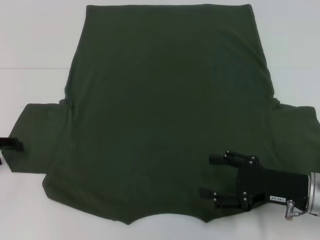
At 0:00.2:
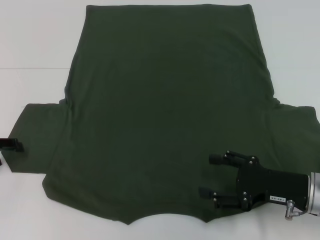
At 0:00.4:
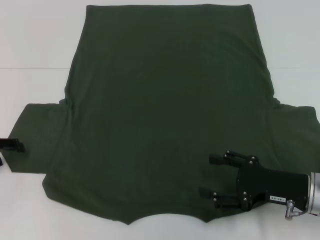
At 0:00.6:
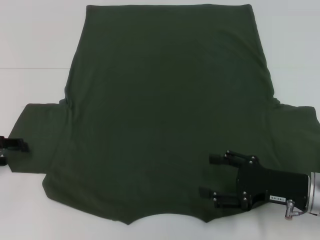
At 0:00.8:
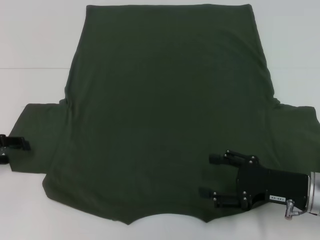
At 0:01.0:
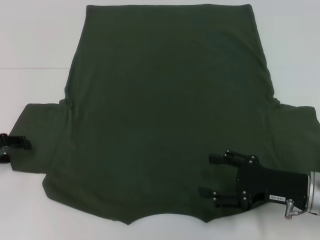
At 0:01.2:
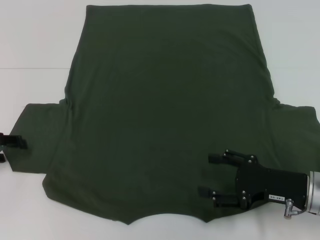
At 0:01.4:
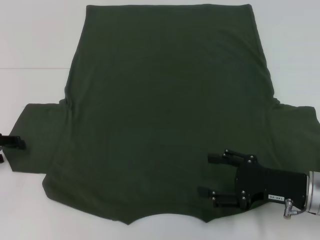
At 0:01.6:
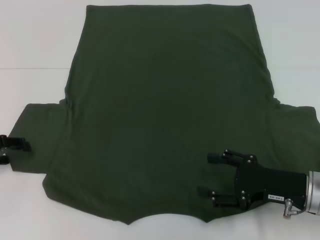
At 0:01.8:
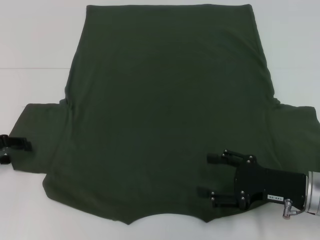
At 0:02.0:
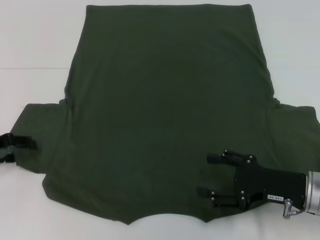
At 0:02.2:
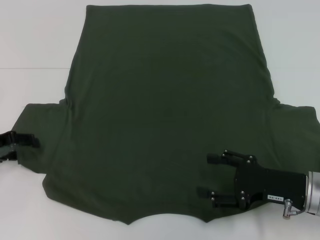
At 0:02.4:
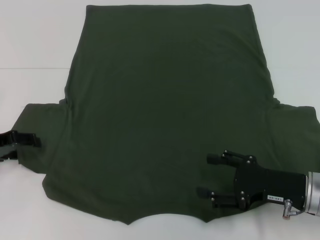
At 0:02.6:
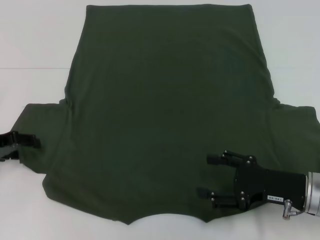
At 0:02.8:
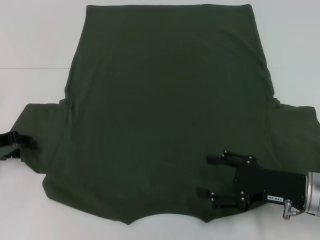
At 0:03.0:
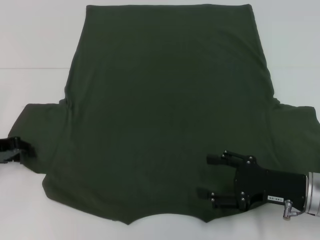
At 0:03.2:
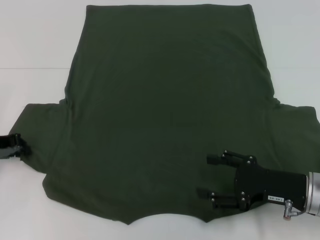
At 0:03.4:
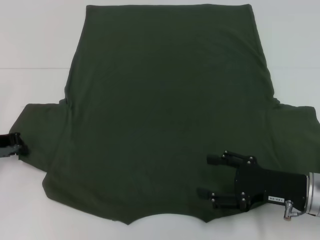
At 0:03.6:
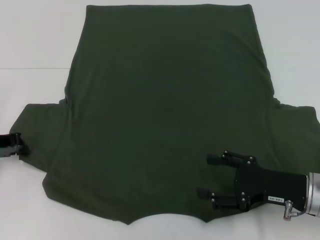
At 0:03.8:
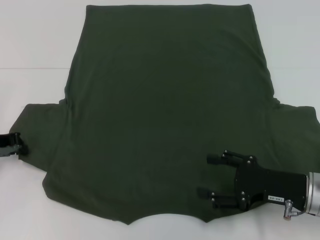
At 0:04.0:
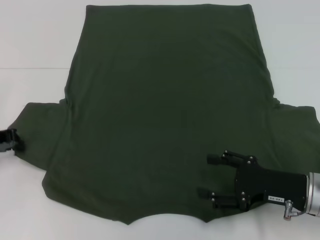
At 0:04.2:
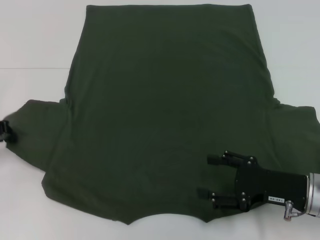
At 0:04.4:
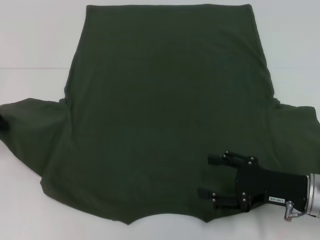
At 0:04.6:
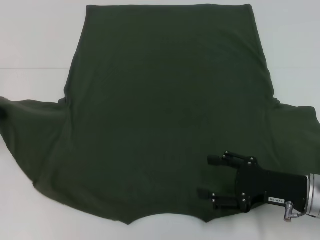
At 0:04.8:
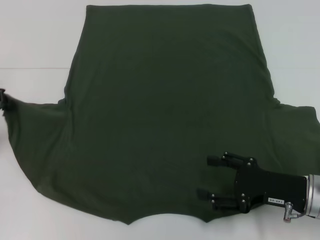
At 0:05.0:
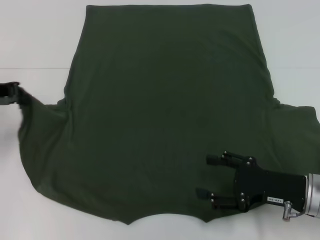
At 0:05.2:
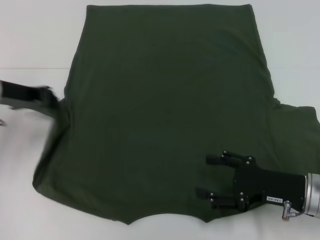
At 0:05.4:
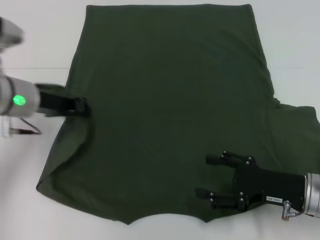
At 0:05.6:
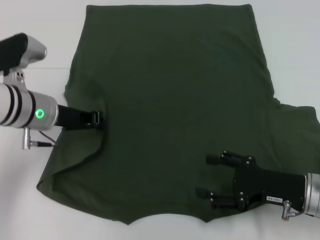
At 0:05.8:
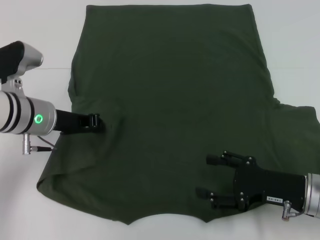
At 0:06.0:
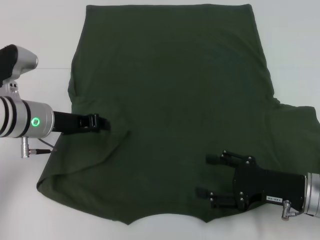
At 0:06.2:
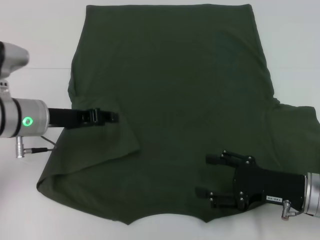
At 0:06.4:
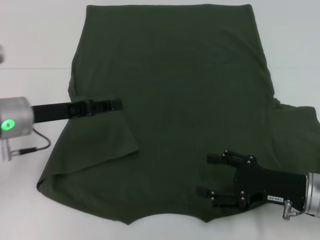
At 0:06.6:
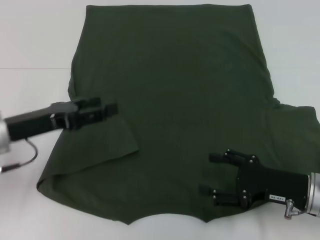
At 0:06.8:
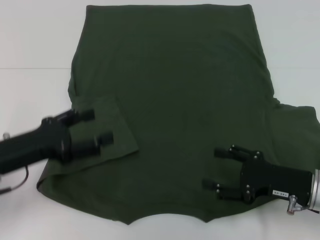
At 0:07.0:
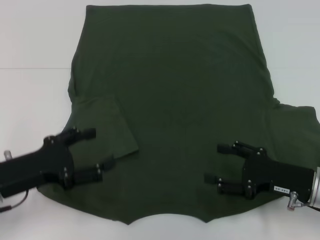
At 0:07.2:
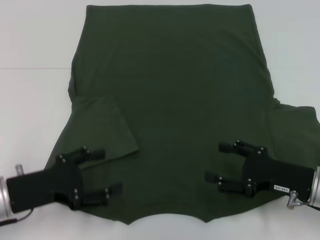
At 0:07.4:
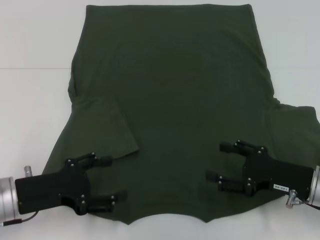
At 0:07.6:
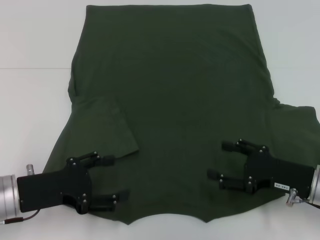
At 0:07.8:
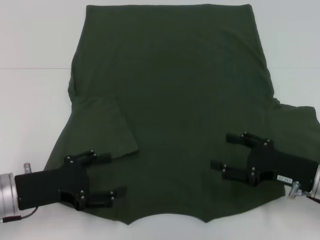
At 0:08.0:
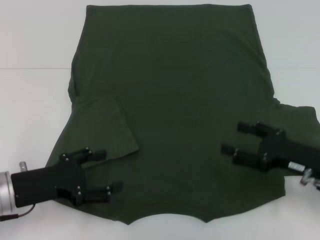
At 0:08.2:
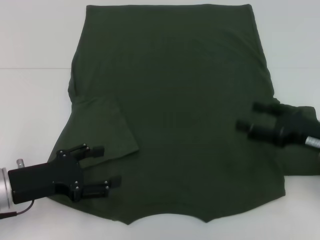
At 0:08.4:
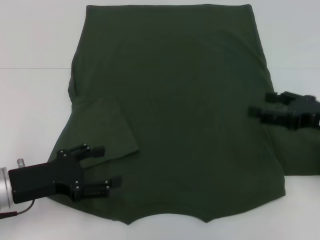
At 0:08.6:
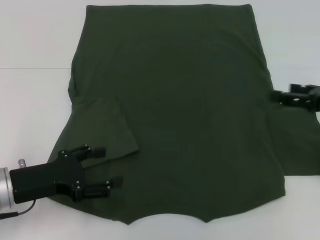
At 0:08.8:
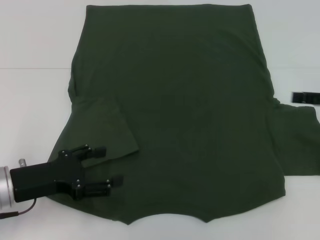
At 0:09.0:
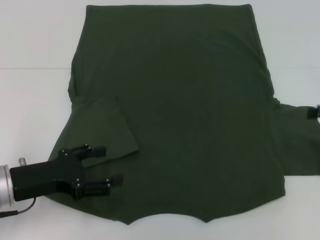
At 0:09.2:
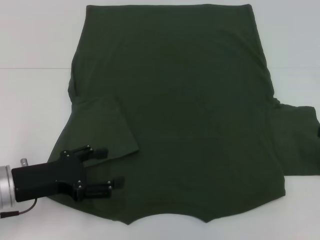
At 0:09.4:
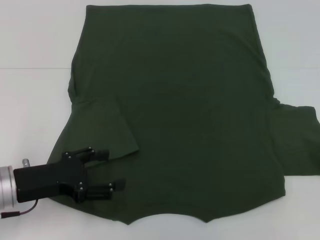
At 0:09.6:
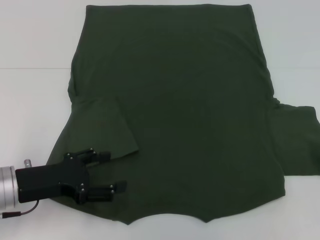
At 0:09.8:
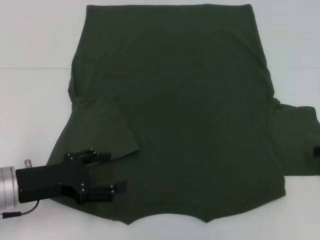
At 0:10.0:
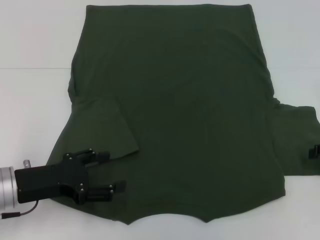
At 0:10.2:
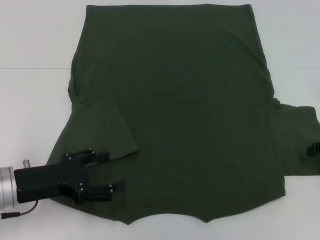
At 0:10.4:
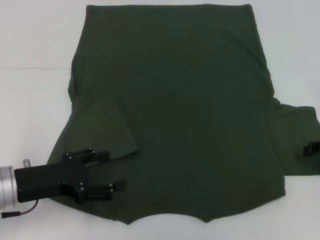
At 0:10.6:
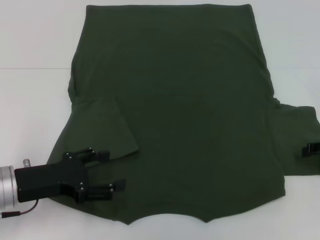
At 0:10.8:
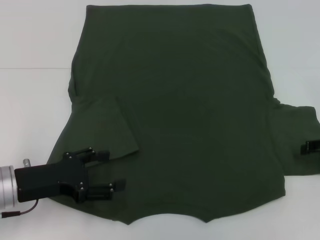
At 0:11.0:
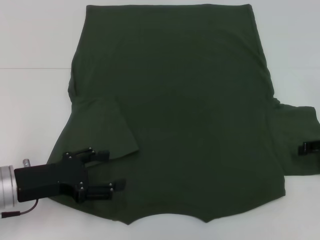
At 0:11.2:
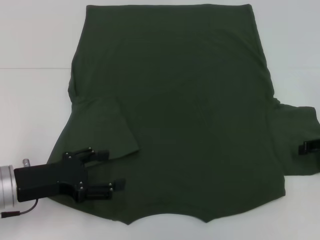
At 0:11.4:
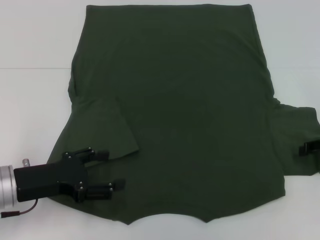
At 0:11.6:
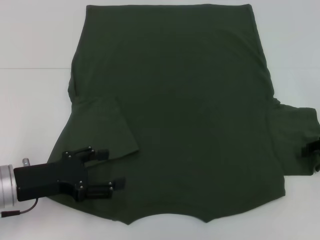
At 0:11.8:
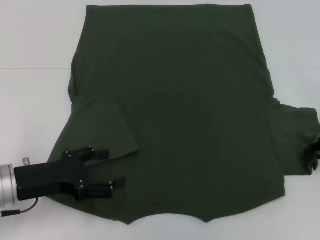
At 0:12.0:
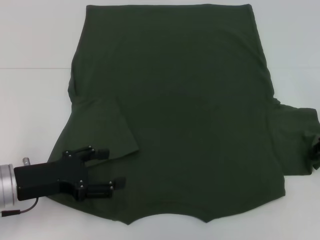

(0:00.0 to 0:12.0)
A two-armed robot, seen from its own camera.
Step, 0:00.0 - 0:06.4: Fold the bottom left sleeve with your left hand.
0:00.0 - 0:01.6: Both grippers stay put.
0:01.6 - 0:03.0: The grippers stay close to where they were, moving slightly.
0:03.0 - 0:04.4: The left gripper closes up.
0:04.4 - 0:06.0: The left gripper moves to the right, roughly 15 cm.
0:06.0 - 0:07.6: The left gripper is displaced backward by about 10 cm, and opens.
0:07.6 - 0:09.0: The right gripper shifts about 15 cm to the right and upward.

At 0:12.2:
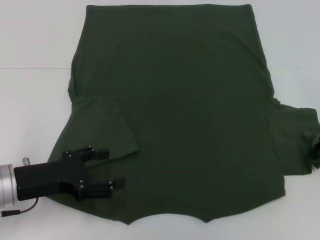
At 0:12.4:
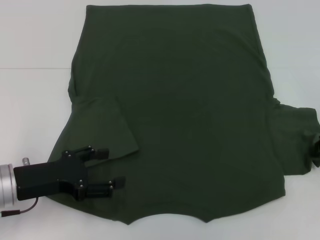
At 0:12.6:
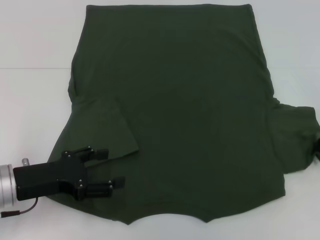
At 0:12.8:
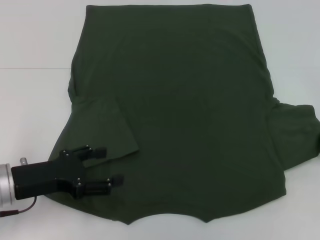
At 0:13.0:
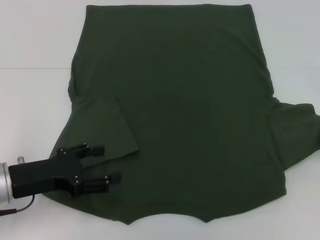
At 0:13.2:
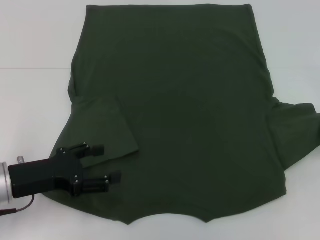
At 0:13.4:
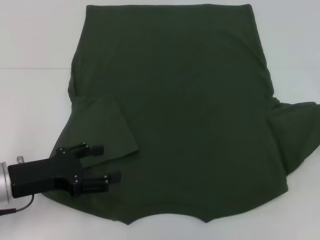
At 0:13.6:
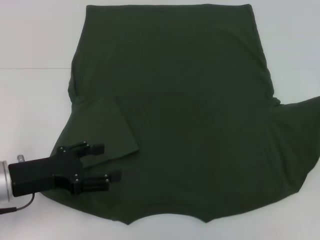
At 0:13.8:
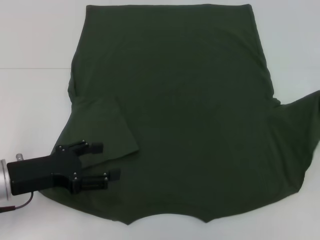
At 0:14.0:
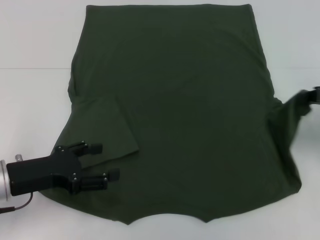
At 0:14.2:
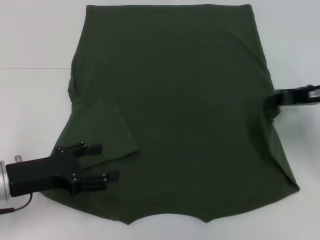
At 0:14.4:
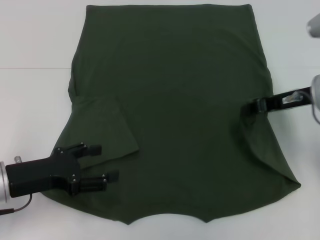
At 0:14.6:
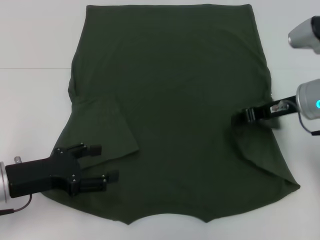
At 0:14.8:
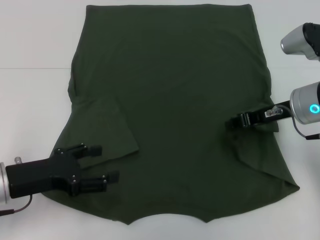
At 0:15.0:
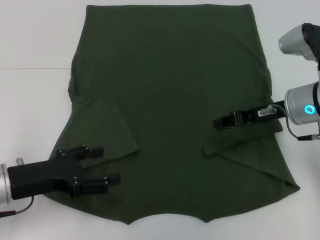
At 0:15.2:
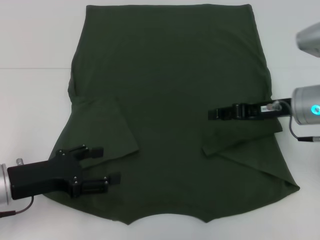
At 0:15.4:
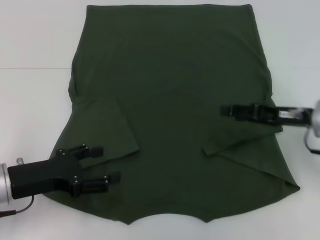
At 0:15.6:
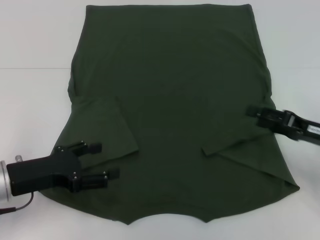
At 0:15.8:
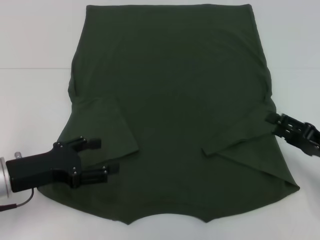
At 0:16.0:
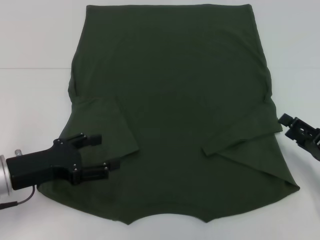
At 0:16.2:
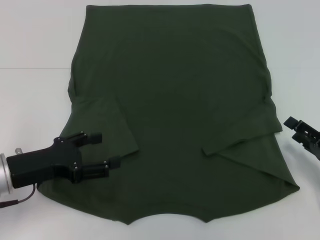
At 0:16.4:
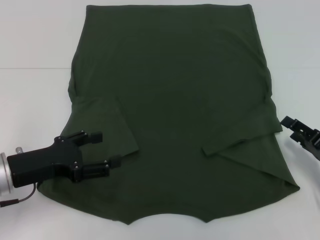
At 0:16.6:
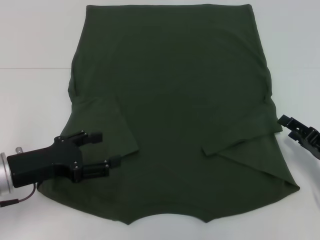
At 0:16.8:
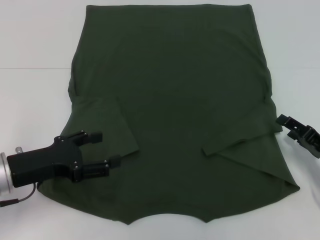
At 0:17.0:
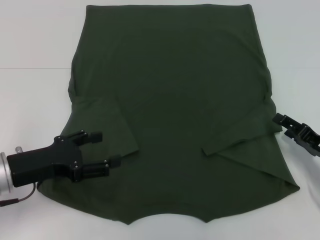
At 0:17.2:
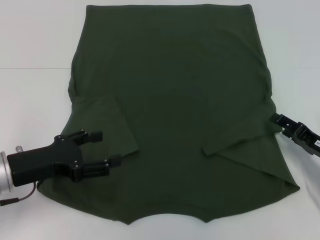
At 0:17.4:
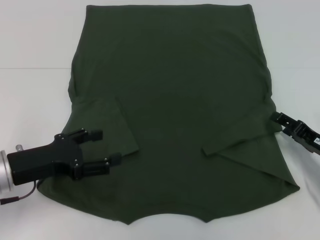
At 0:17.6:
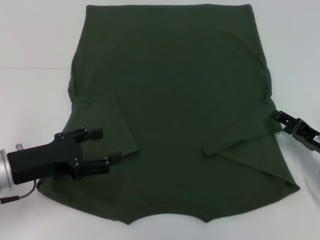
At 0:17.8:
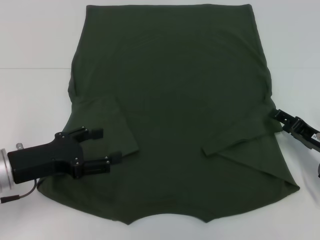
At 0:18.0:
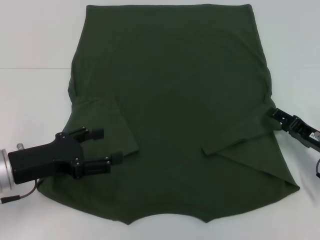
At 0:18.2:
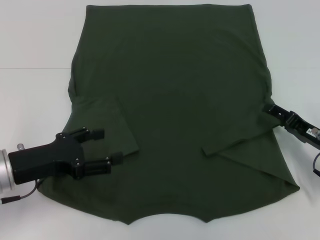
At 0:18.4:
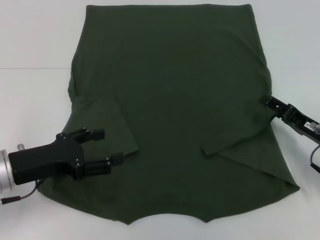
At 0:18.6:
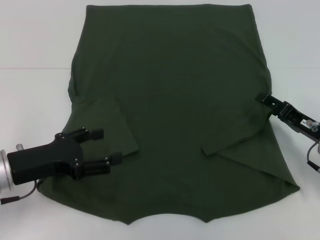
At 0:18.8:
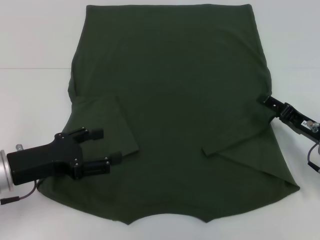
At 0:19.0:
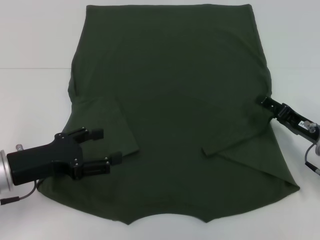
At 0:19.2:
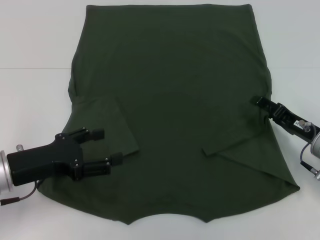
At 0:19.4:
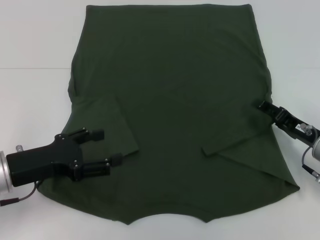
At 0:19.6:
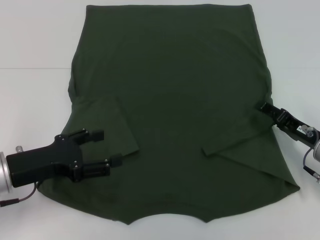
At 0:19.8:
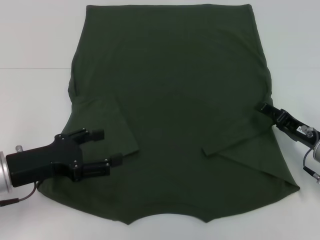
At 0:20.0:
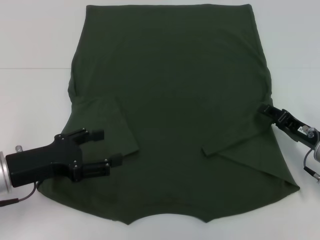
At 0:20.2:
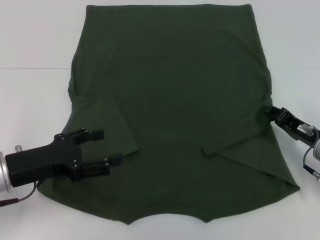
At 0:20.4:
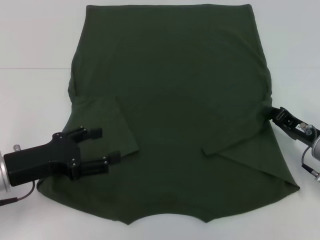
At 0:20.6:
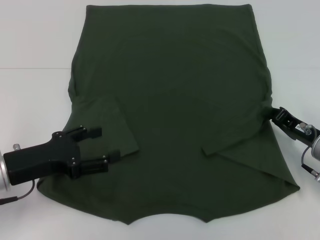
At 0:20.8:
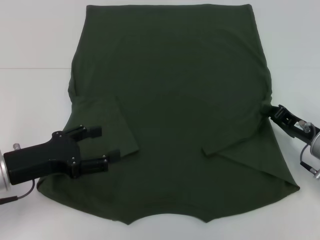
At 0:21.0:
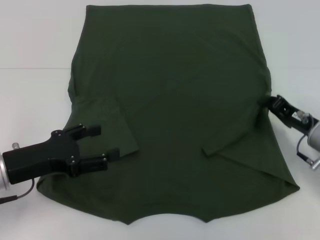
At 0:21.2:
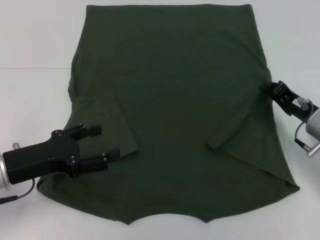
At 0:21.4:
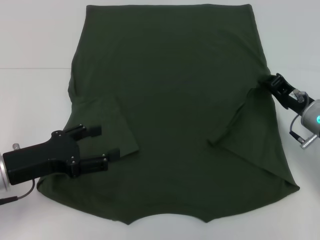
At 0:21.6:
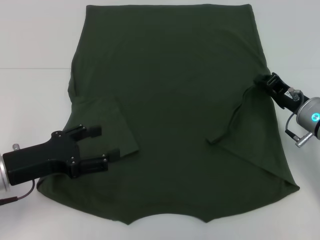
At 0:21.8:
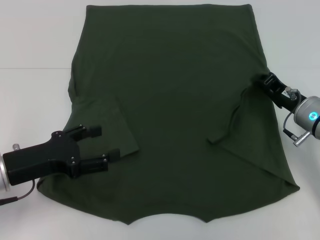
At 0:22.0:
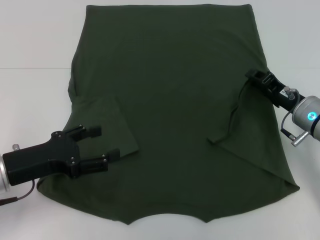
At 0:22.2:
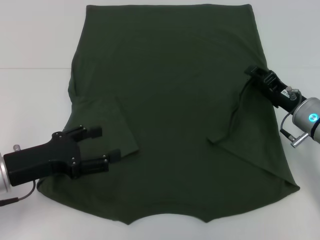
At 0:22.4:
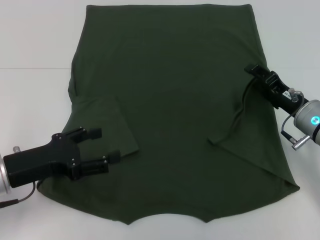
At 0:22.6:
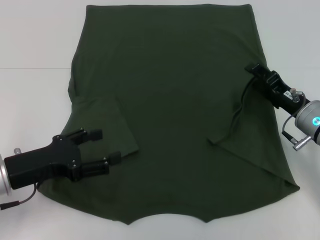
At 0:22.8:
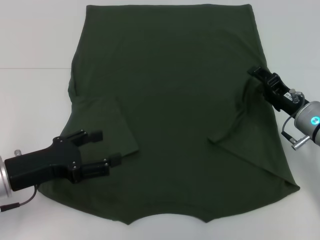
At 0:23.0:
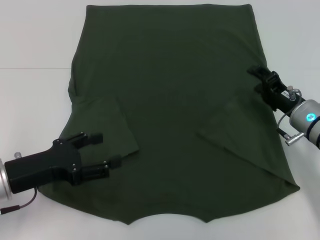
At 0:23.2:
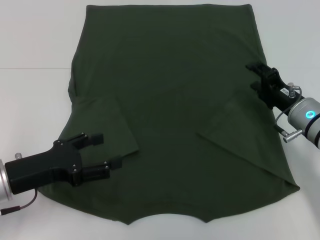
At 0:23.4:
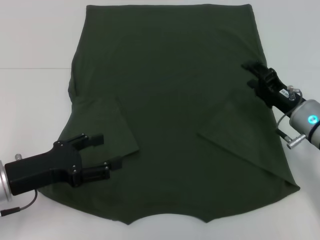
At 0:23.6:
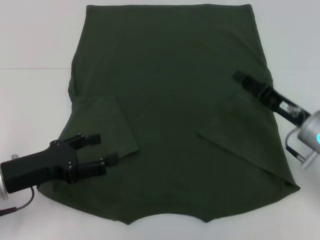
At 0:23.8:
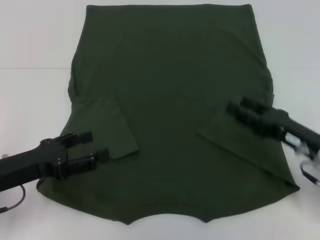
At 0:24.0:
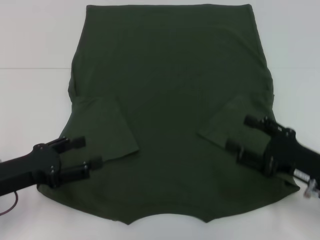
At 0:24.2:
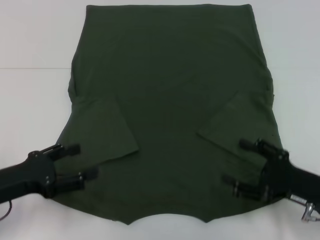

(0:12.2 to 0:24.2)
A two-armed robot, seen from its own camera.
Step, 0:12.2 - 0:15.4: Fold the bottom right sleeve with your right hand.
0:12.2 - 0:13.8: The right gripper travels upward by about 5 cm.
0:13.8 - 0:15.2: The right gripper moves to the left, some 15 cm.
0:15.2 - 0:16.6: The right gripper goes about 15 cm downward, backward and to the right, and opens its fingers.
0:16.6 - 0:18.2: The grippers move only a little.
0:18.2 - 0:19.8: The grippers stay close to where they were, moving slightly.
0:19.8 - 0:21.2: The right gripper closes up.
0:21.2 - 0:22.6: The right gripper opens its fingers.
0:22.6 - 0:24.2: The right gripper travels backward by approximately 10 cm.
